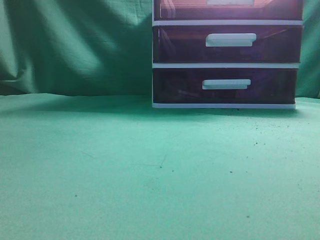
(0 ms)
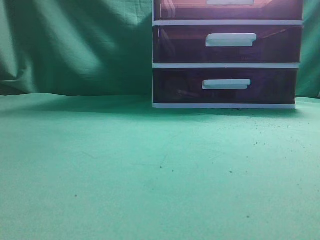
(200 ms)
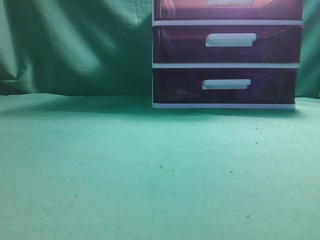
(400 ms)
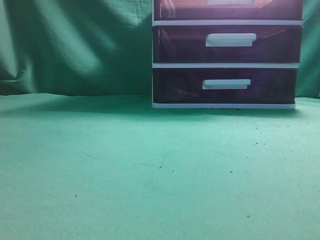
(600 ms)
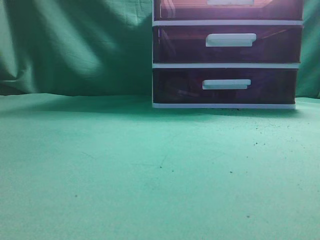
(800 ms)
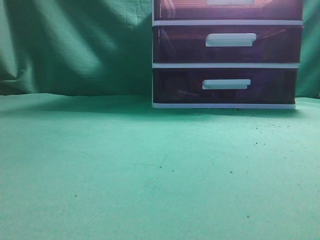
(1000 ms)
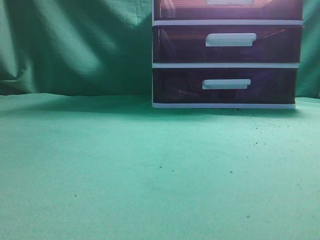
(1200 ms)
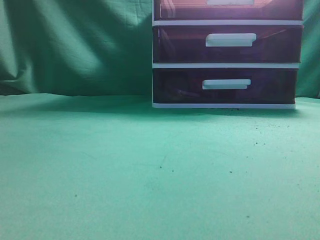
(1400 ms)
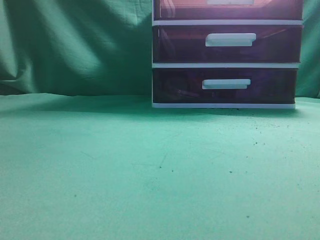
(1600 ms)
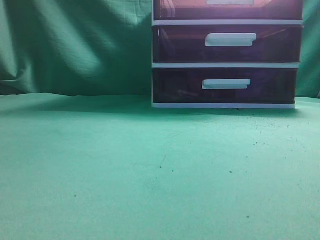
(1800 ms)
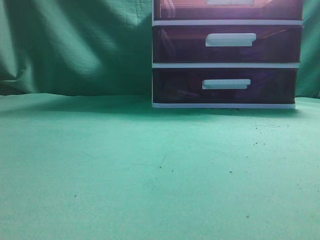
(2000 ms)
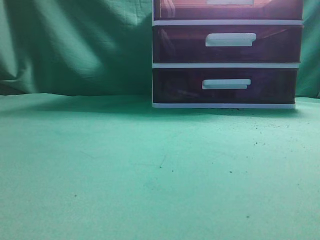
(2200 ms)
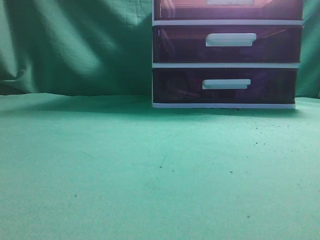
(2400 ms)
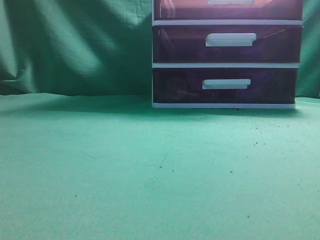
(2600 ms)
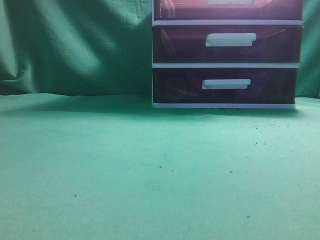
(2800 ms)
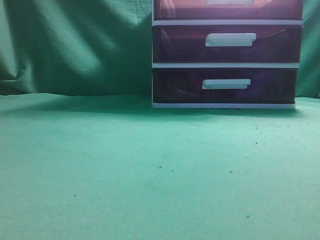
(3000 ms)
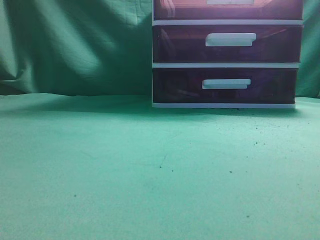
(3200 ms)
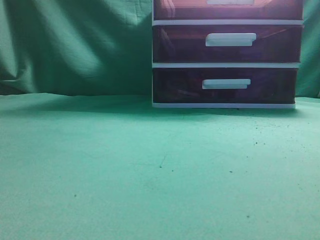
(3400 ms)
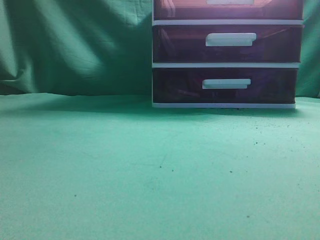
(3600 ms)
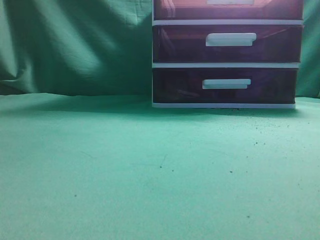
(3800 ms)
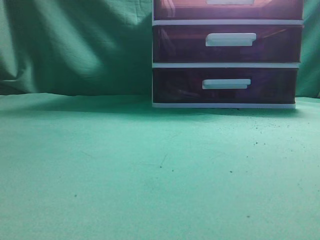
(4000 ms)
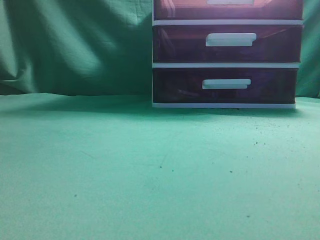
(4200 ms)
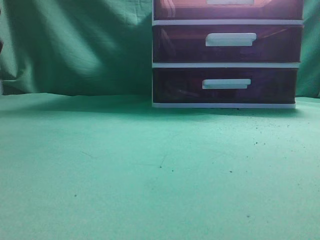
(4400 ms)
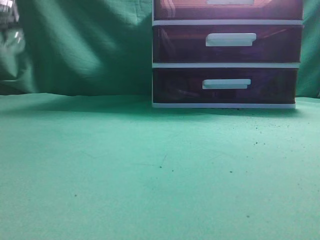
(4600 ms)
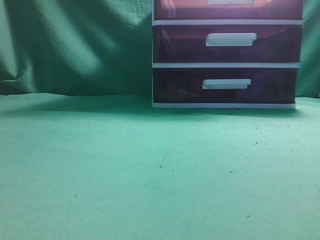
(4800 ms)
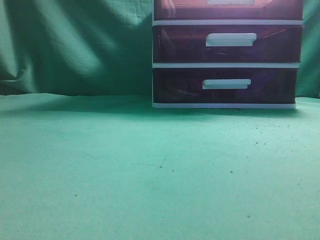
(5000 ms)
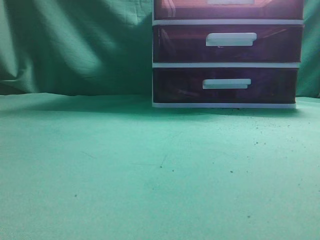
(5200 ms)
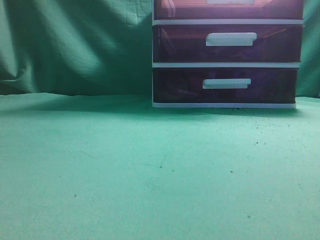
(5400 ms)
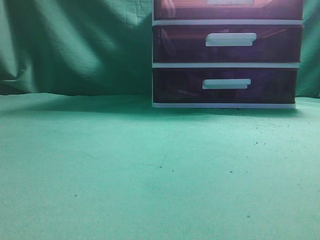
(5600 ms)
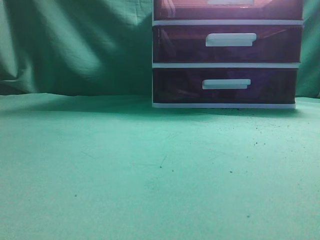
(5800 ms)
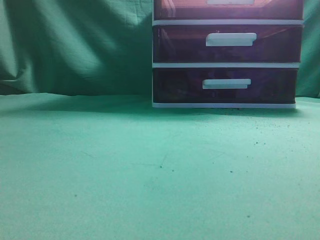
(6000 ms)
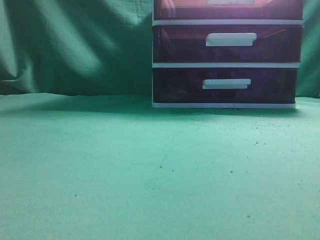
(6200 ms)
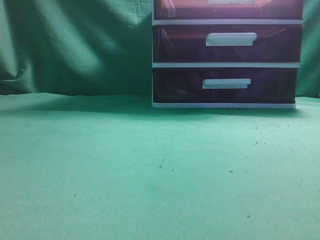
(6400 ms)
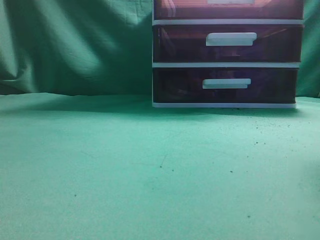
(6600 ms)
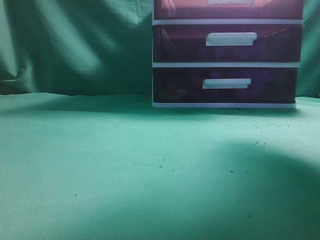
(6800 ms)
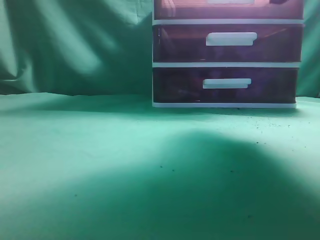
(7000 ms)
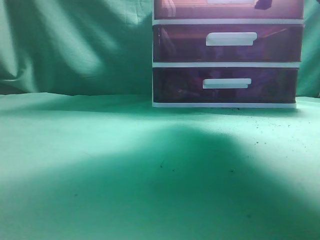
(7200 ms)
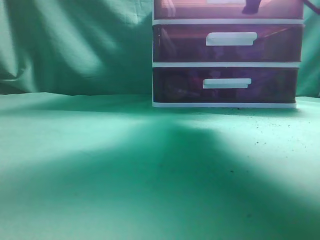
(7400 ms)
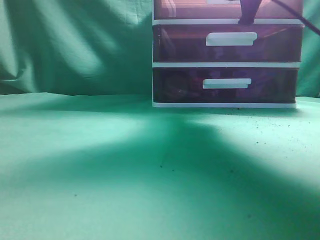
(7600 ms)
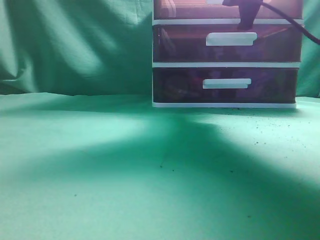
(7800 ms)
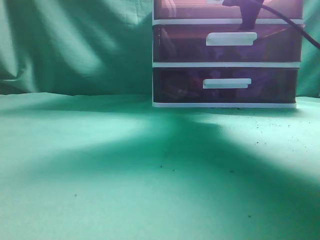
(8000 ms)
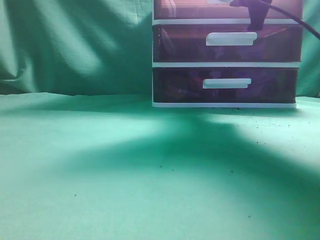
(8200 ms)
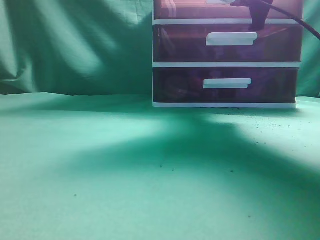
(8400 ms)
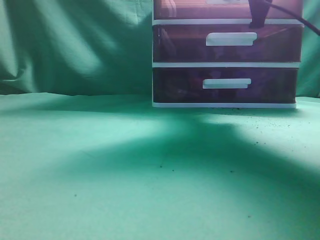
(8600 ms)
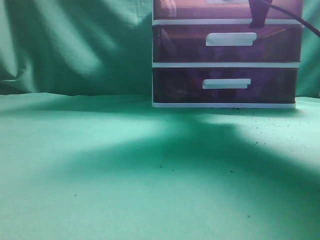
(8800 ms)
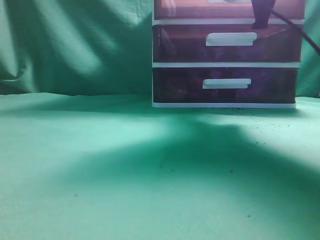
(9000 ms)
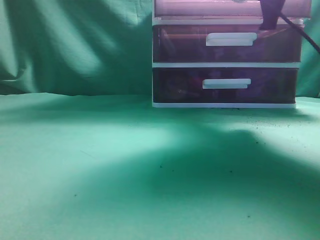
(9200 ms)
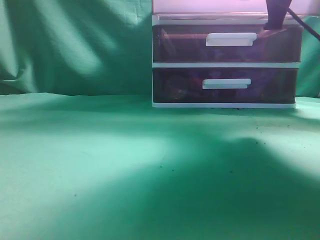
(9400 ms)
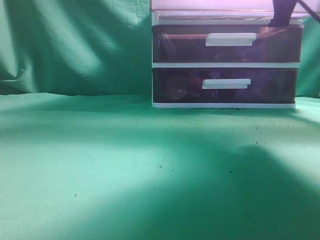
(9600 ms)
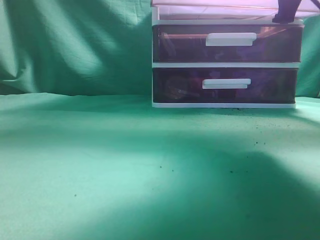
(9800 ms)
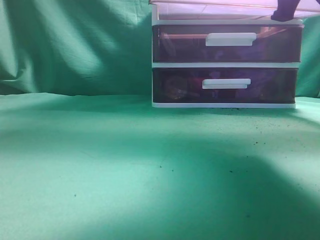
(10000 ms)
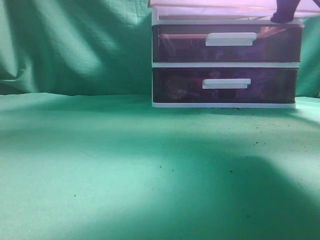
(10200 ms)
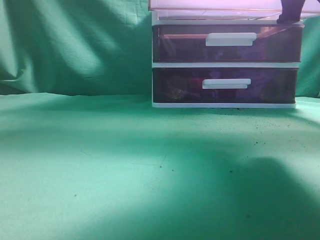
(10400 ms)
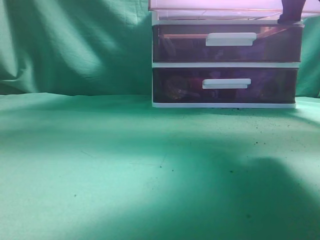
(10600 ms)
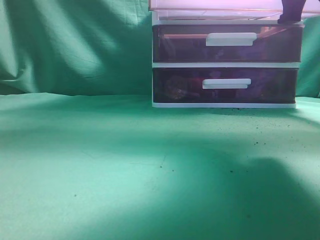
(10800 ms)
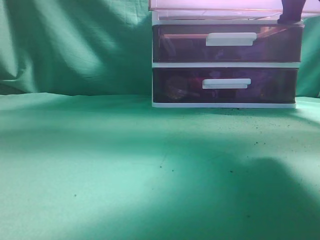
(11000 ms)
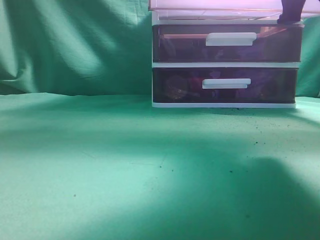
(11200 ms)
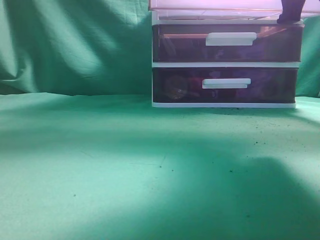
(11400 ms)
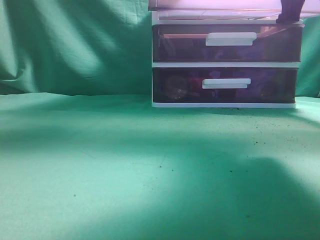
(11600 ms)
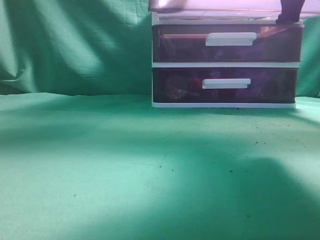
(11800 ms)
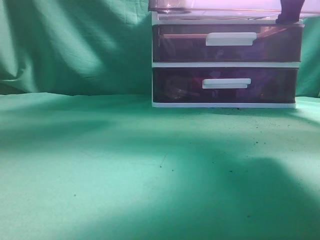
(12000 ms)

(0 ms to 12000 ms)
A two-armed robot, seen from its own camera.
Task of the whole recording: place the water bottle into the drawer.
Step, 0 ms - 11200 ms: Open the drawer.
6000 ms - 7600 ms: The right gripper shifts roughly 30 cm forward, and opens its fingers.
7600 ms - 9000 ms: The right gripper closes up.
9000 ms - 10400 ms: The right gripper shifts some 15 cm backward.
10400 ms - 12000 ms: The left gripper travels forward and to the right by about 25 cm.

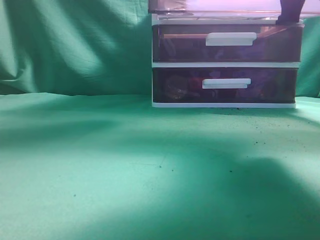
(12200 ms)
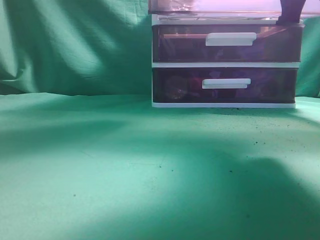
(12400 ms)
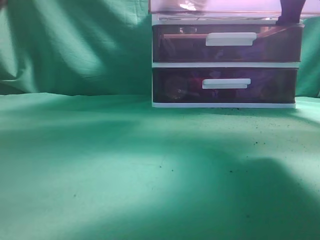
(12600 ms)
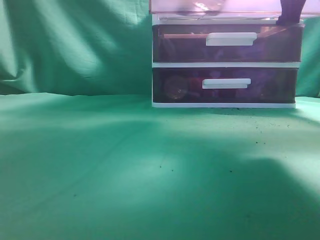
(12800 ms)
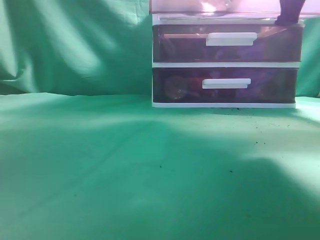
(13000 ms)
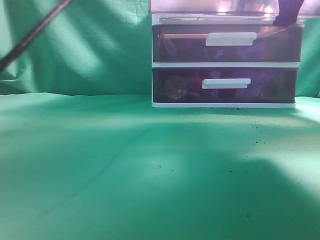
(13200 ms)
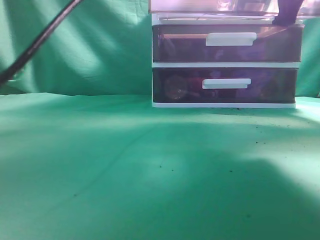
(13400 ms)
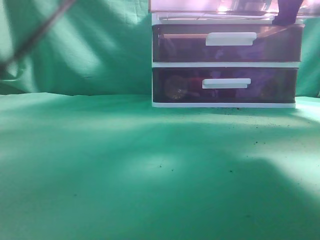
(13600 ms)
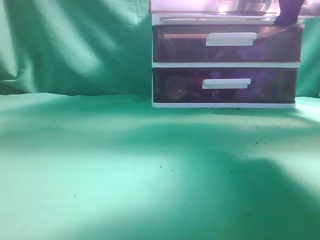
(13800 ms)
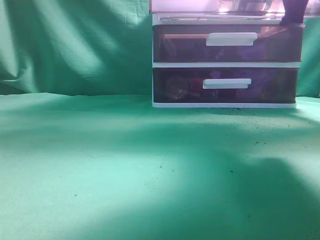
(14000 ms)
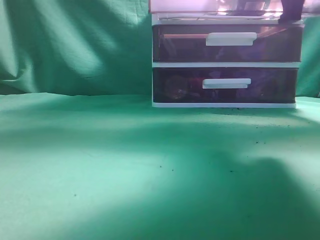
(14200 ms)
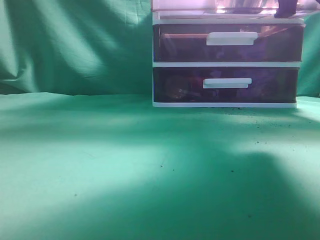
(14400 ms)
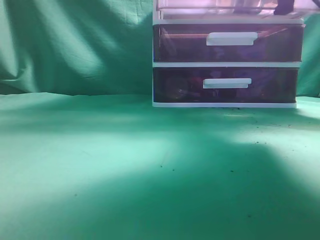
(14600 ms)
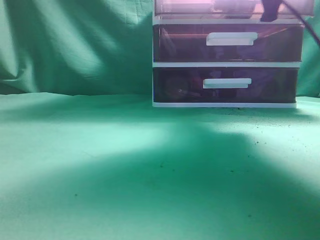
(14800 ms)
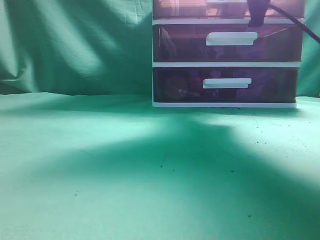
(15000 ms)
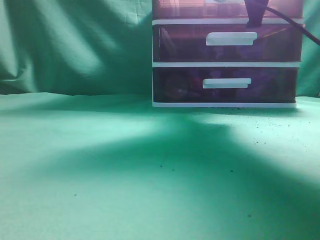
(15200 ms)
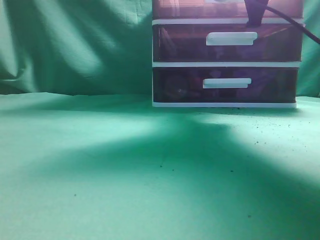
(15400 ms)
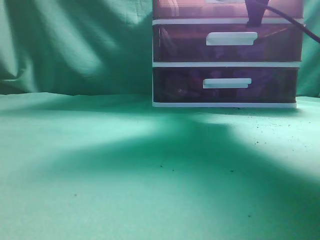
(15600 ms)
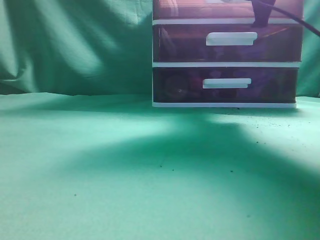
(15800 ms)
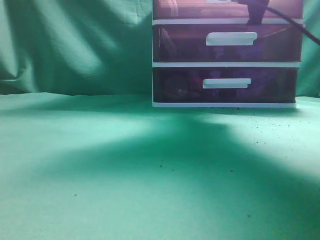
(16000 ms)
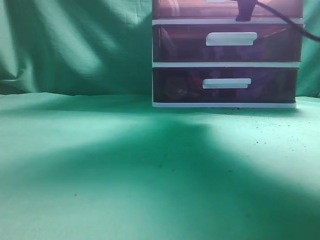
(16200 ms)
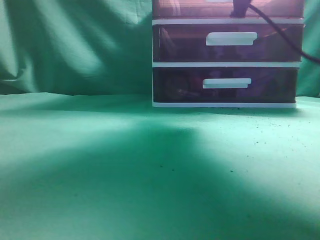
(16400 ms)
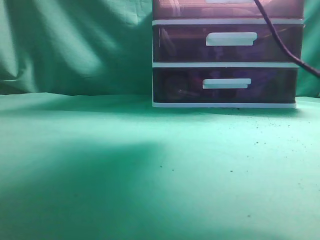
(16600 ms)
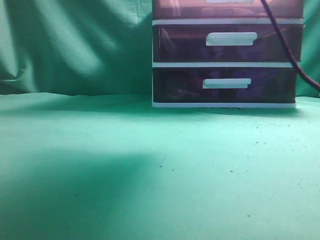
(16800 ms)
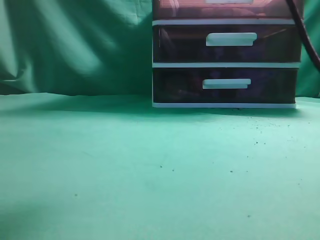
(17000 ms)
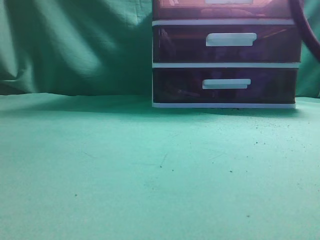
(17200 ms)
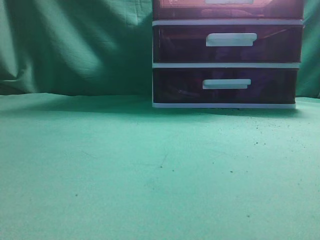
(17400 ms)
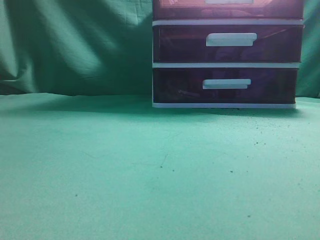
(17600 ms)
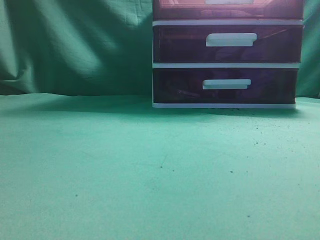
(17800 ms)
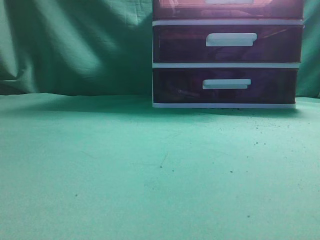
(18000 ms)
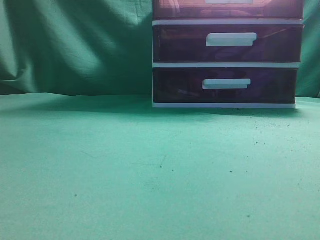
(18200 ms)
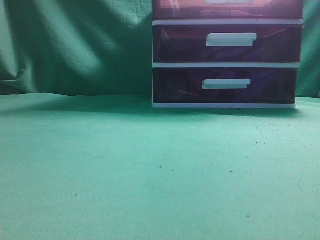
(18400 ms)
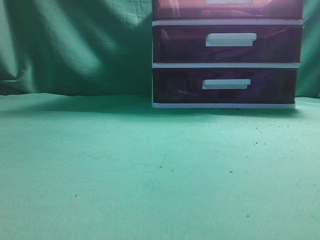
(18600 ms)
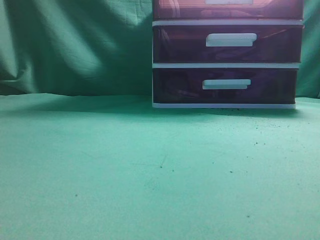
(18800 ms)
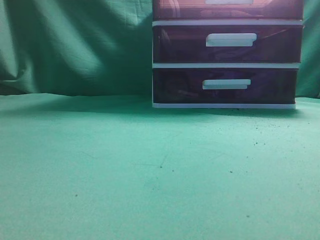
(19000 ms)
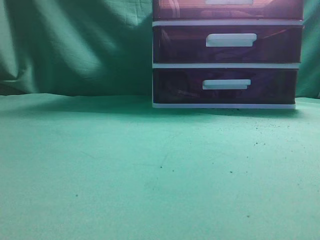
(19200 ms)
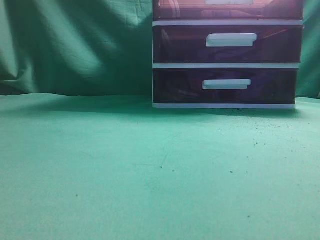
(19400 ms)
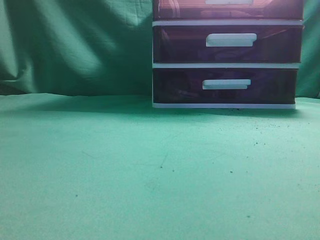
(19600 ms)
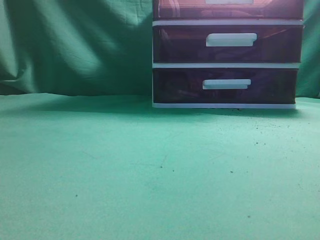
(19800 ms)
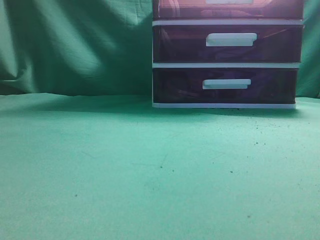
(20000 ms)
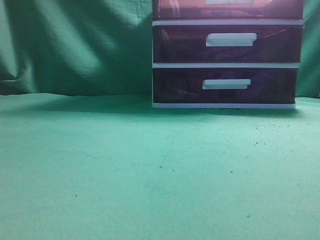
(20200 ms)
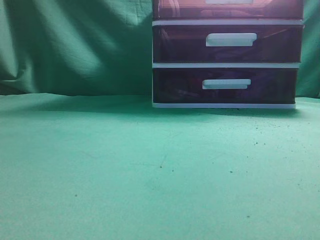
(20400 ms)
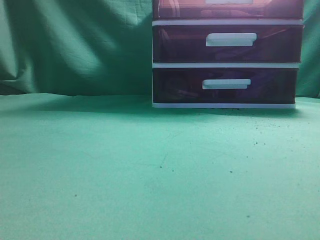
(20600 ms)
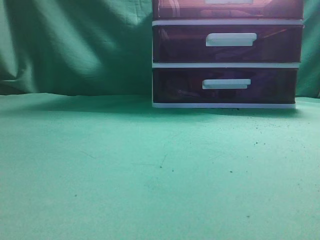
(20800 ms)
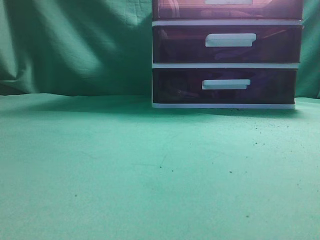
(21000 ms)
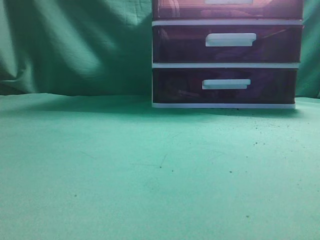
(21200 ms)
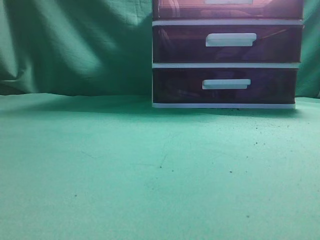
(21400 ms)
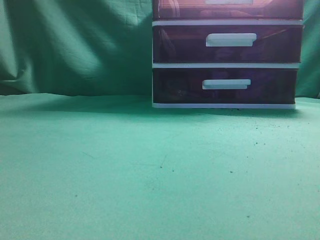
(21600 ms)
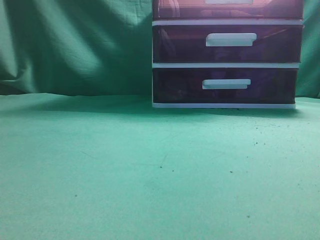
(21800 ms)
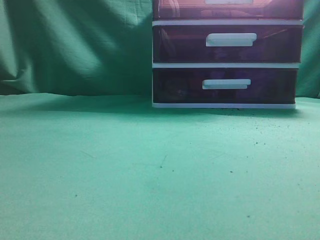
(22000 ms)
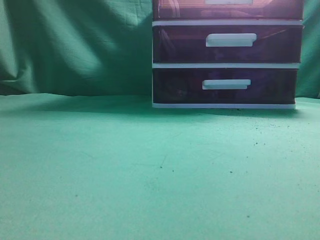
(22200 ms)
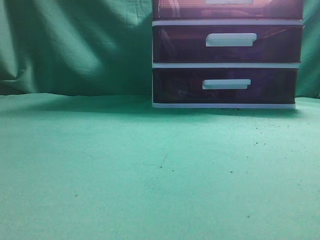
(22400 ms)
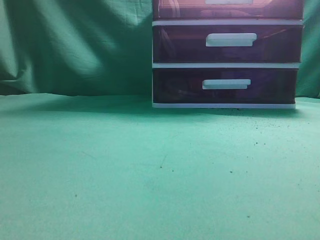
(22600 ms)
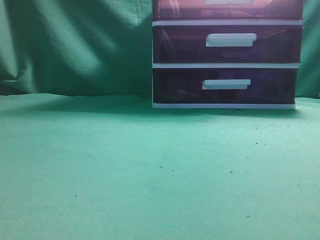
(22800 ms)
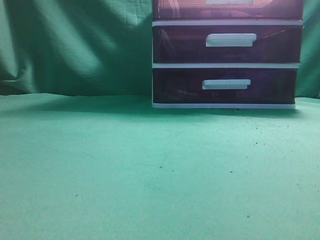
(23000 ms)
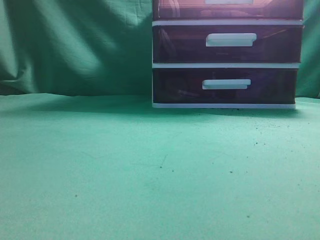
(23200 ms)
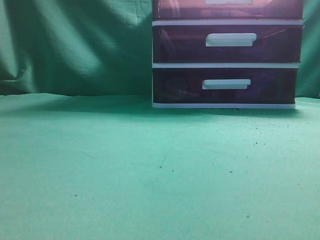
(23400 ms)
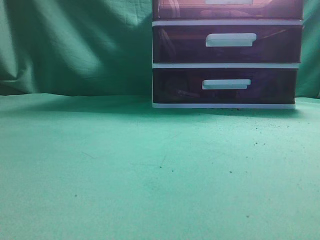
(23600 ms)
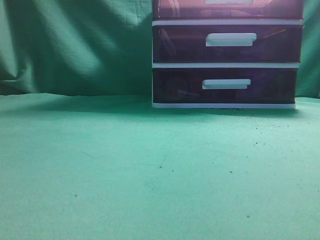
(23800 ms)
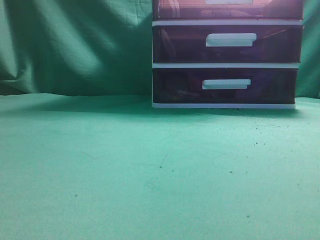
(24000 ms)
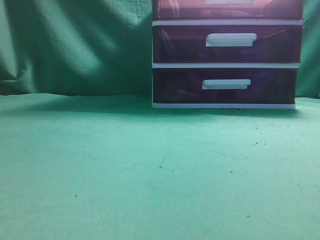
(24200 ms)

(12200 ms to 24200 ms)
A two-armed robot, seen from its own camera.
Task of the whole recording: place the water bottle into the drawer.
Step, 12200 ms - 13800 ms: Place the water bottle inside the drawer.
Step, 14000 ms - 16600 ms: Close the drawer.
12200 ms - 13800 ms: The left gripper travels to the right by some 10 cm, and closes up.
13800 ms - 15200 ms: The right gripper shifts roughly 15 cm forward. The left gripper goes some 15 cm to the left and upward.
15200 ms - 16600 ms: The right gripper heads backward, covering some 5 cm, and opens its fingers.
16600 ms - 18200 ms: The left gripper heads backward and to the left, covering approximately 25 cm. The right gripper heads backward, covering roughly 25 cm, and closes up.
